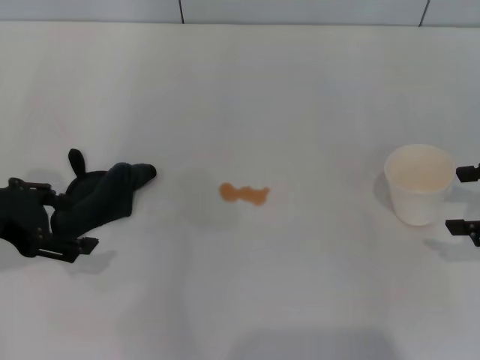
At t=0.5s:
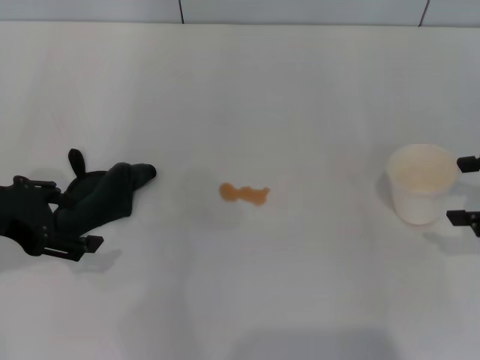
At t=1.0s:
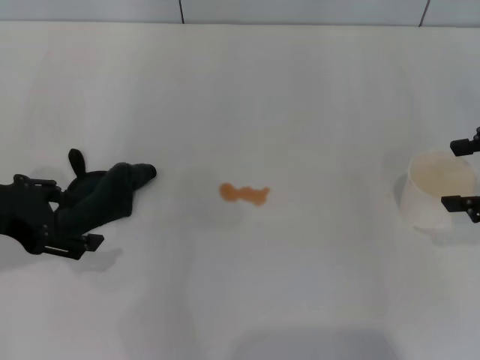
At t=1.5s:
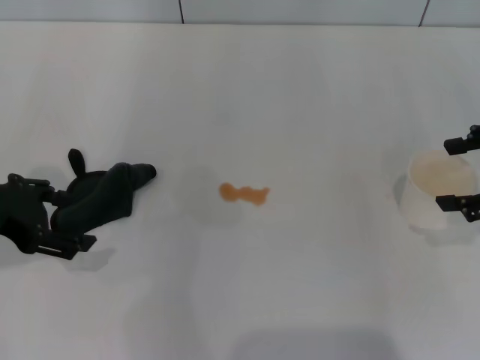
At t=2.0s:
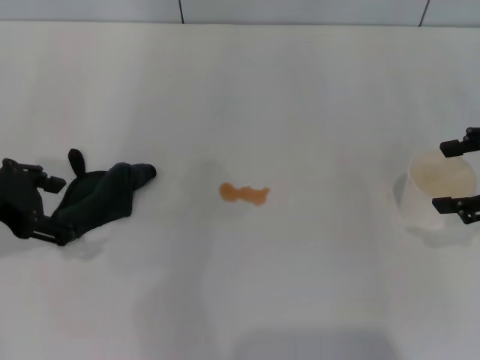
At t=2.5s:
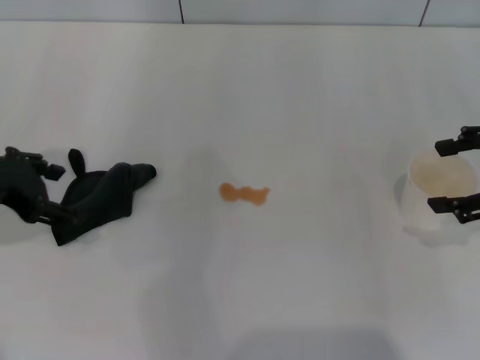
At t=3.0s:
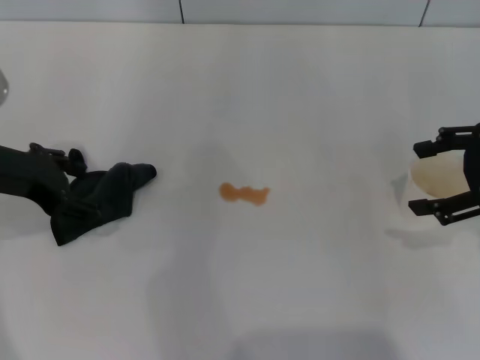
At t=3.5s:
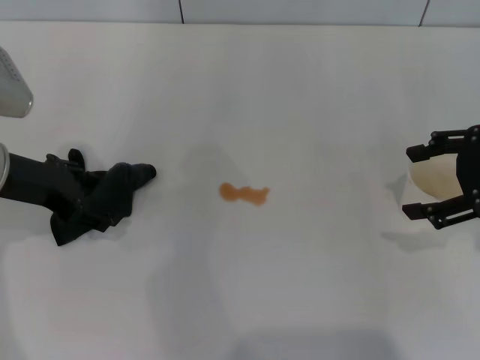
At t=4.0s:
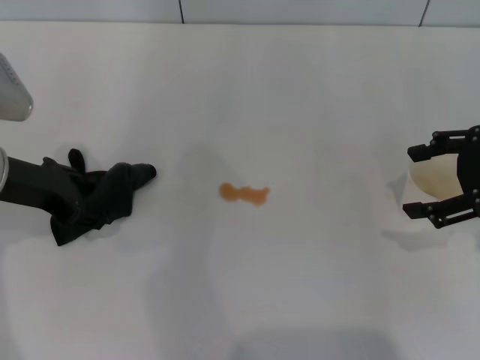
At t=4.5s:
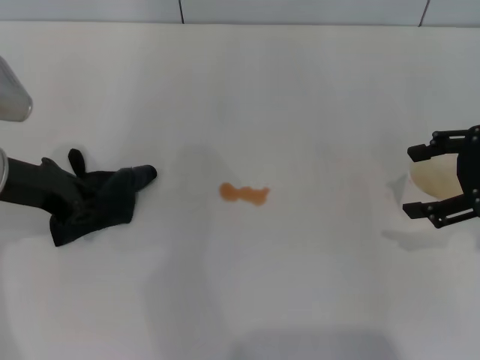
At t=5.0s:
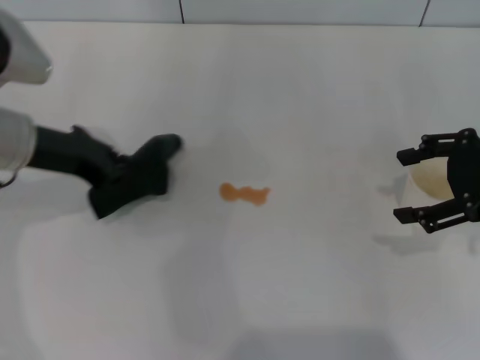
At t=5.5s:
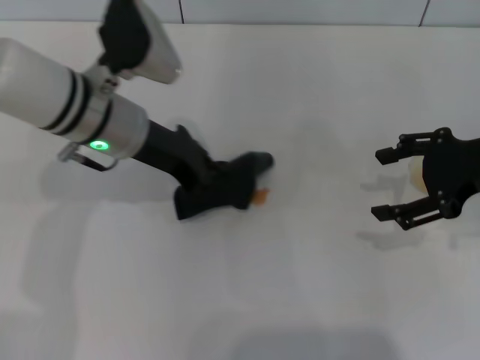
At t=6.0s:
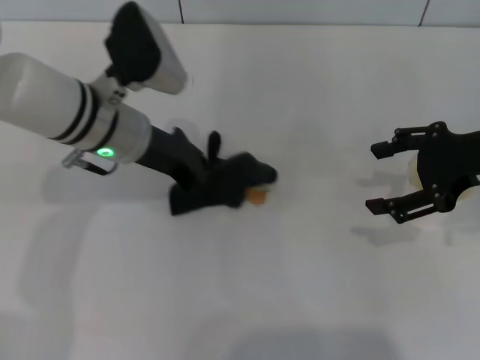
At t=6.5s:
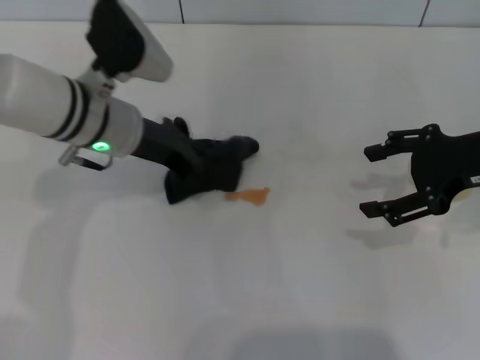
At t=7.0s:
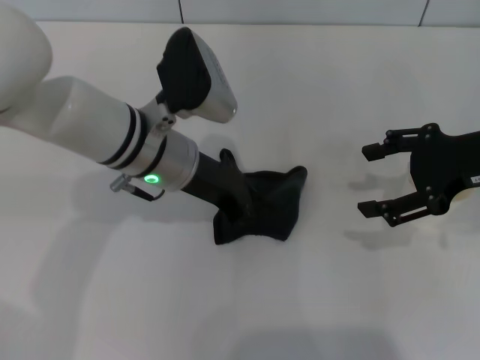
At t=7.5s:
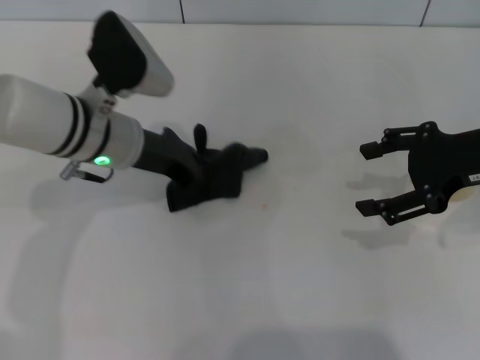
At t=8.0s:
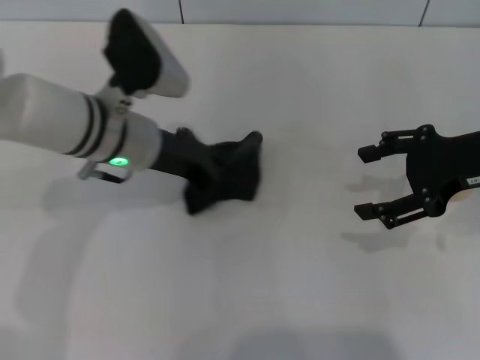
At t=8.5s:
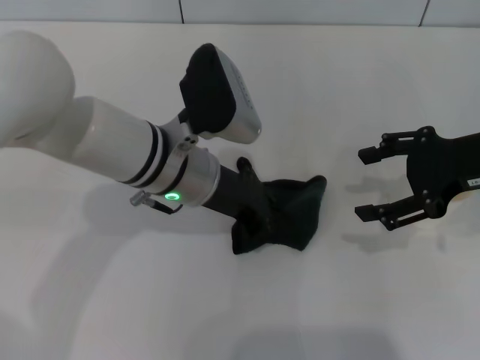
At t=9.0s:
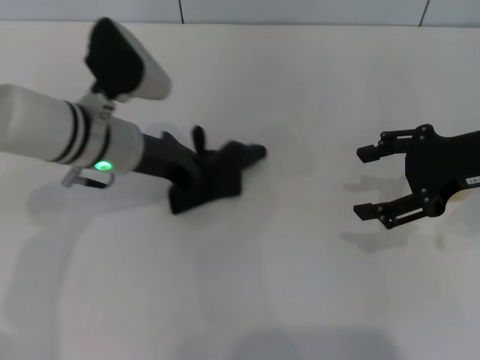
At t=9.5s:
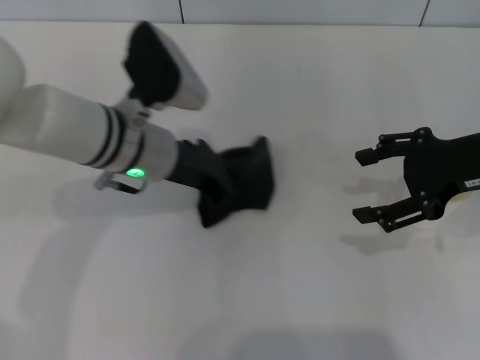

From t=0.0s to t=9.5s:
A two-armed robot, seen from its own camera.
Step, from t=0.0s to t=4.5s: Grasp the rag with the left gripper.
From t=0.0s to t=2.0s: There are only small adjustments of the grippers.
From t=2.0s to t=4.0s: The left gripper moves roughly 5 cm.
From t=4.0s to t=5.5s: The left gripper goes about 10 cm to the right, and closes up.
From t=5.5s to t=7.5s: The grippers make only small movements.

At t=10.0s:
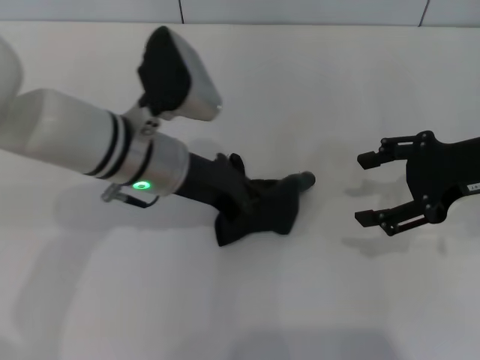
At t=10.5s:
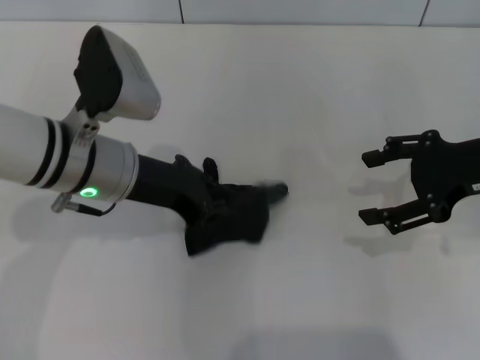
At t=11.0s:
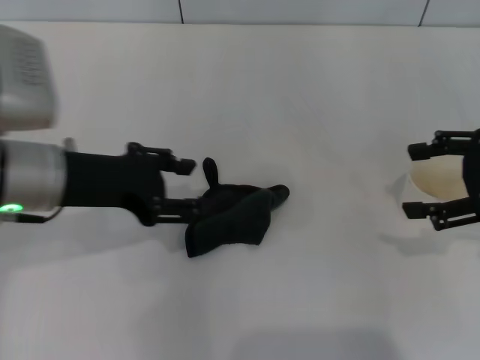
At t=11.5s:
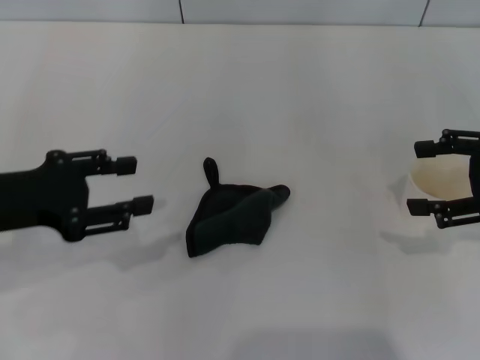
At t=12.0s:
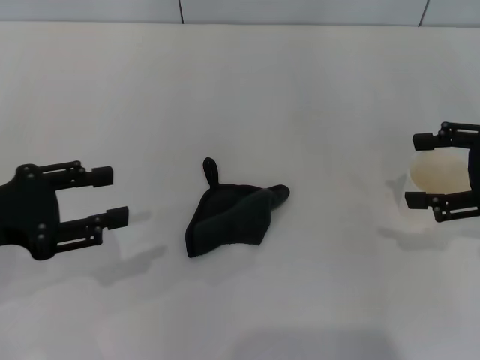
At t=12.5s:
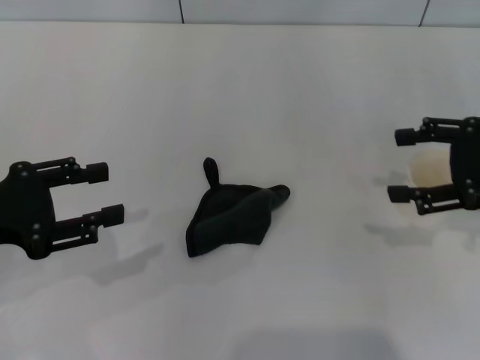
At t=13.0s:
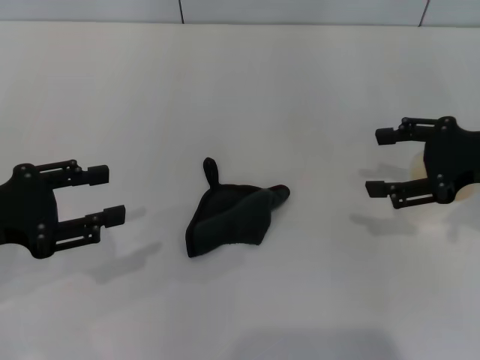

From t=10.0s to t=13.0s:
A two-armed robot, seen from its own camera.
Step, from t=10.5s to t=11.0s: Place the rag on the table with the left gripper.
From t=10.0s to t=11.5s: The right gripper shifts some 5 cm to the right. Meanwhile the left gripper shifts approximately 20 cm to the left and backward, and opens its fingers.
From t=11.5s to t=13.0s: The grippers make only small movements.

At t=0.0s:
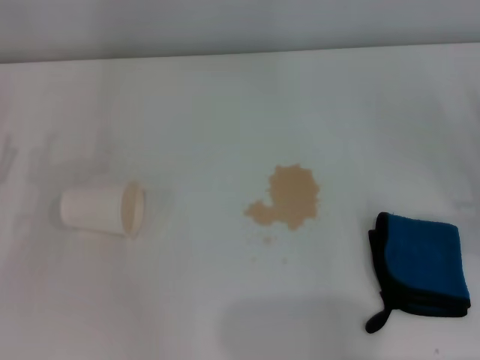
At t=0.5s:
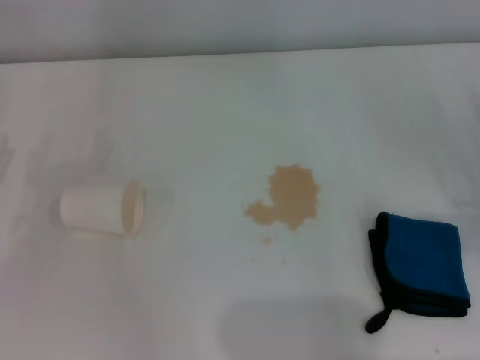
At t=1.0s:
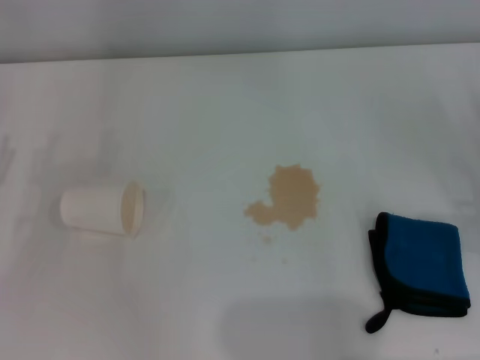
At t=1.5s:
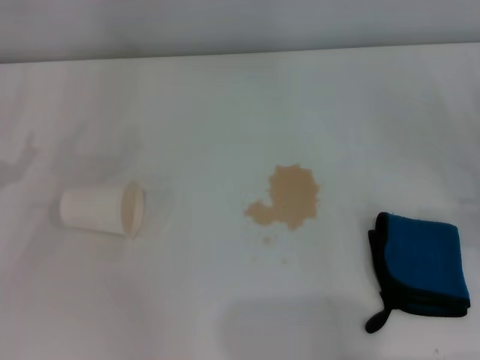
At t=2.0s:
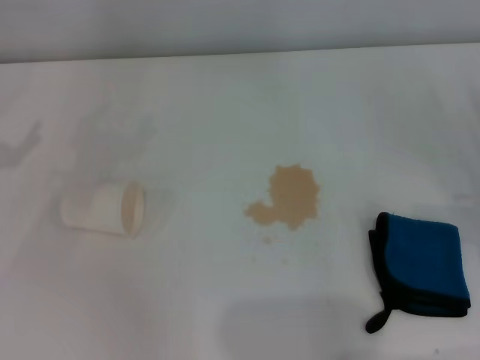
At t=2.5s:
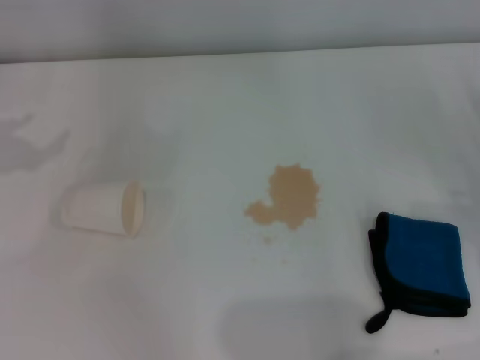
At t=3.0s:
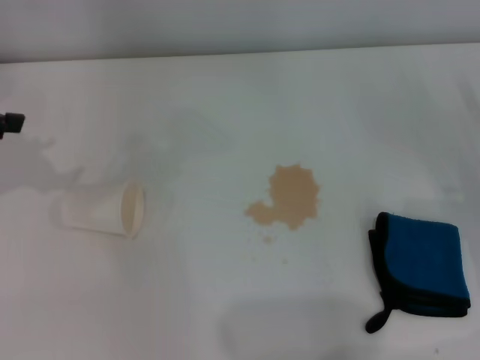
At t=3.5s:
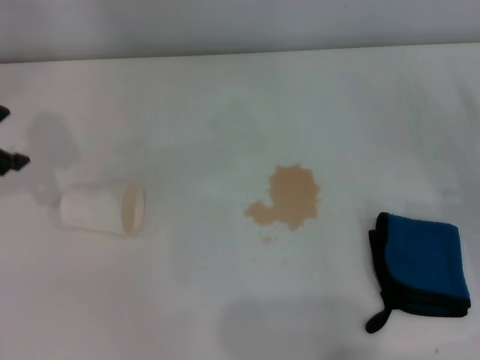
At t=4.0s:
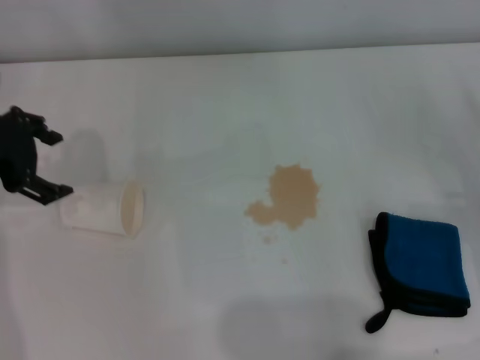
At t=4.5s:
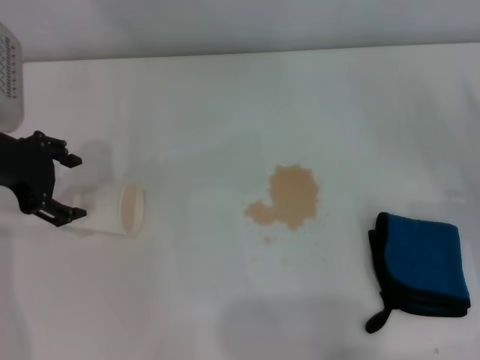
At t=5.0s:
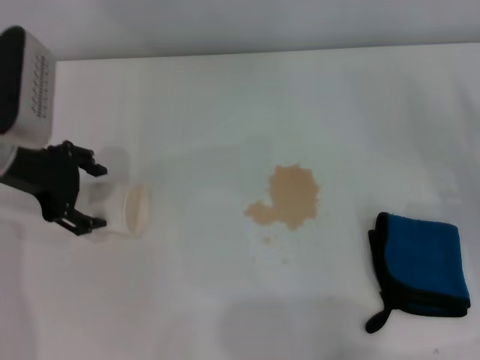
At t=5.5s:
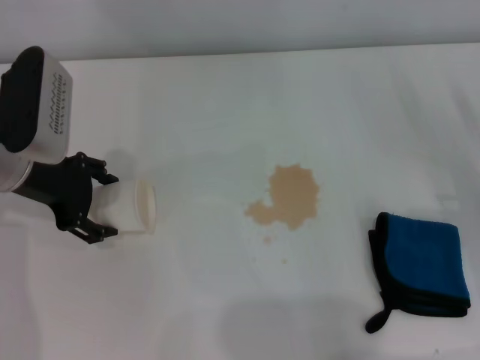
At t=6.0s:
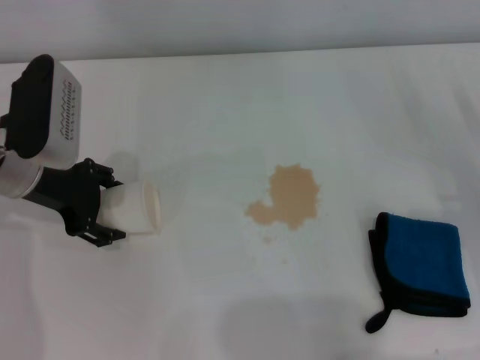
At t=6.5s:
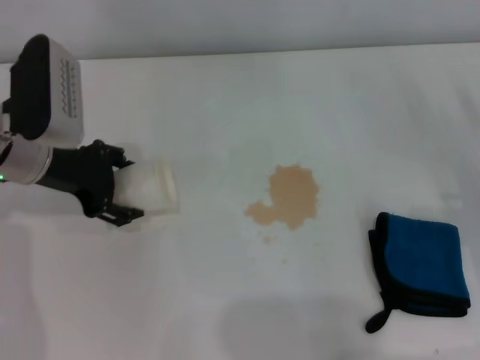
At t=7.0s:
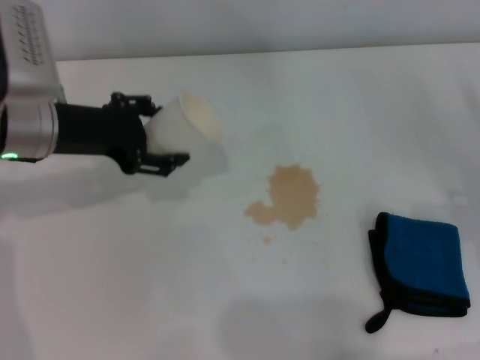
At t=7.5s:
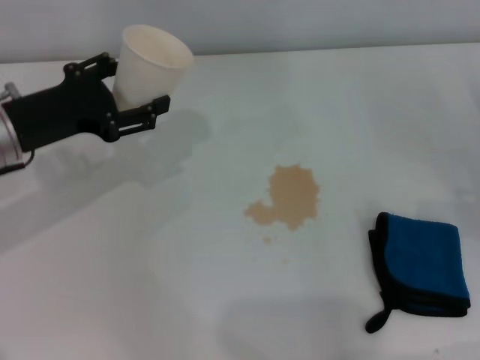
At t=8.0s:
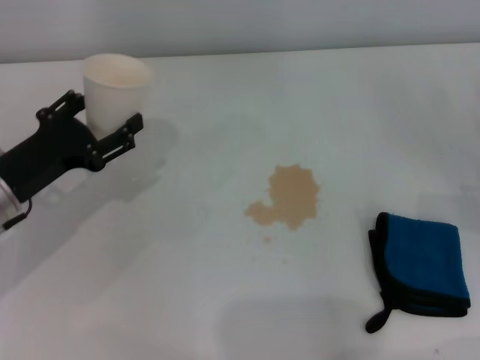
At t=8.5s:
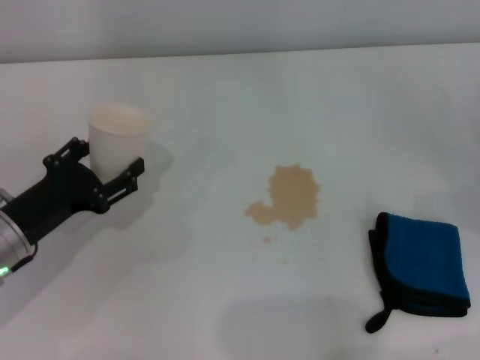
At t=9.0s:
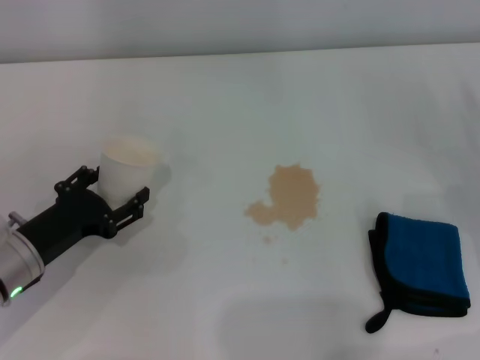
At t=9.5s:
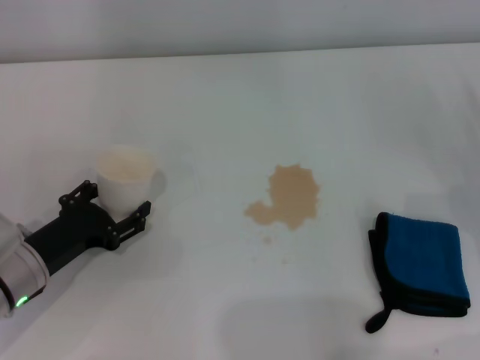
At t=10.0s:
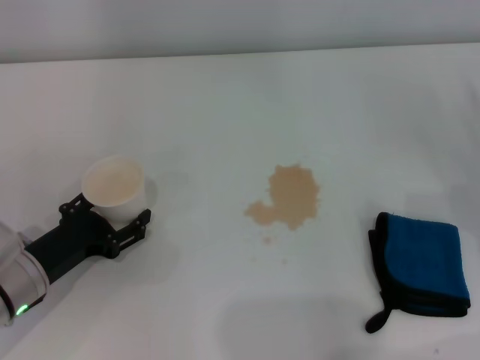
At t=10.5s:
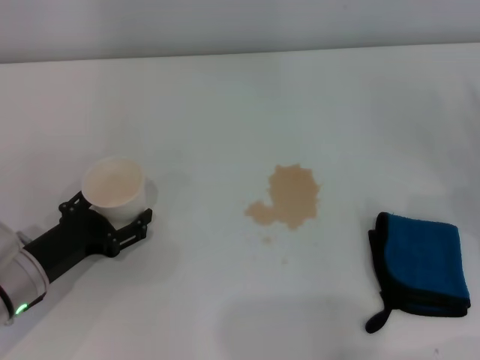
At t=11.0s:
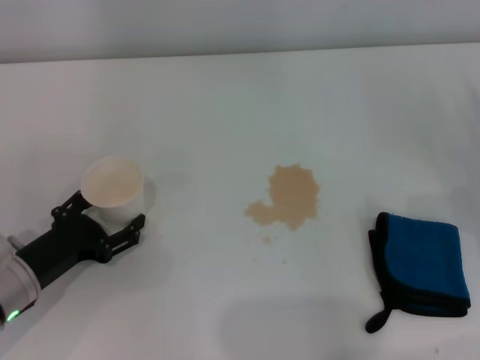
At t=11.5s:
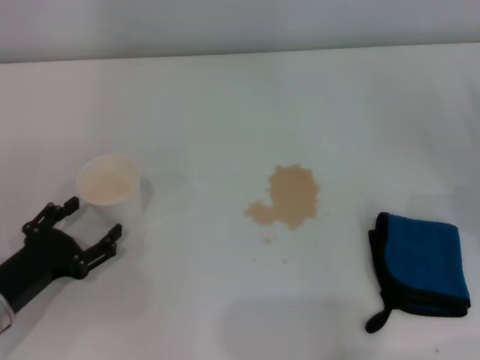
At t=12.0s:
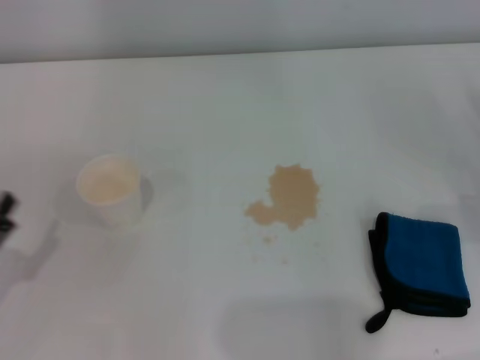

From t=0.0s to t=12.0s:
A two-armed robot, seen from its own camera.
Step, from t=0.0s to t=6.0s: Grasp the paper cup with the left gripper.
Step, from t=6.5s to t=11.0s: Stand the paper cup upright with the left gripper.
From t=2.0s to t=4.0s: The left gripper goes roughly 15 cm to the right, upward and forward.
From t=4.0s to t=6.0s: The left gripper goes approximately 5 cm downward.
From t=6.0s to t=8.0s: The left gripper heads backward and downward, covering about 10 cm.
From t=8.0s to t=10.0s: The left gripper heads downward, covering approximately 5 cm.
From t=10.0s to t=12.0s: The left gripper travels backward and to the left by approximately 10 cm.

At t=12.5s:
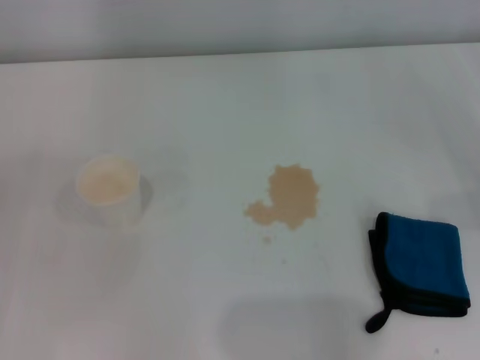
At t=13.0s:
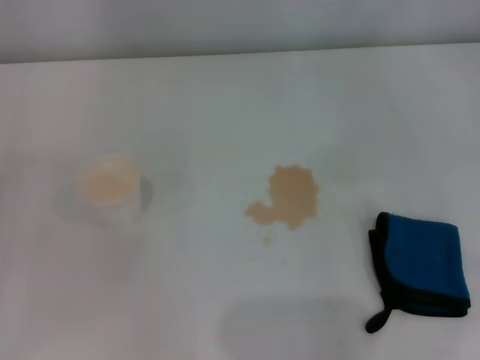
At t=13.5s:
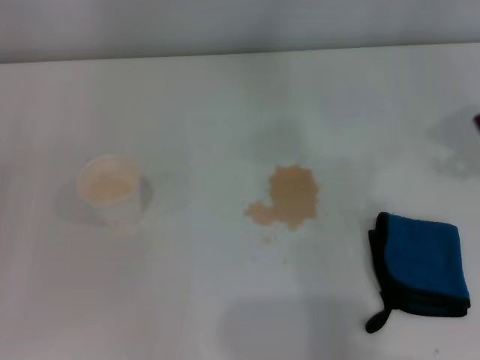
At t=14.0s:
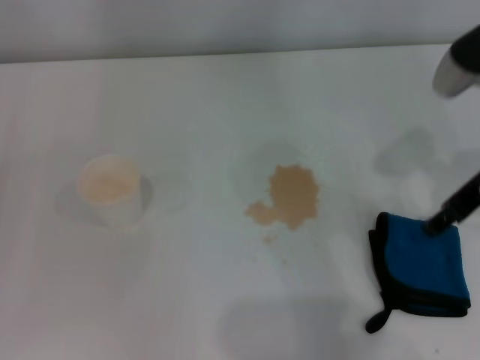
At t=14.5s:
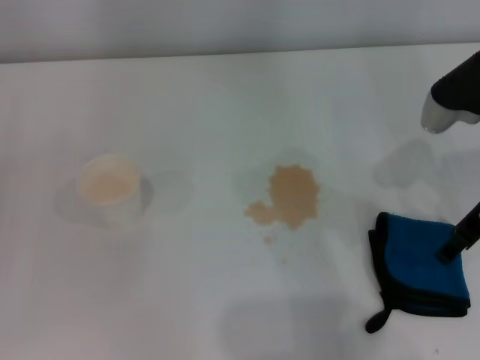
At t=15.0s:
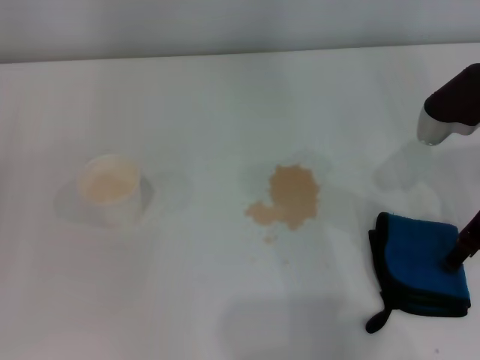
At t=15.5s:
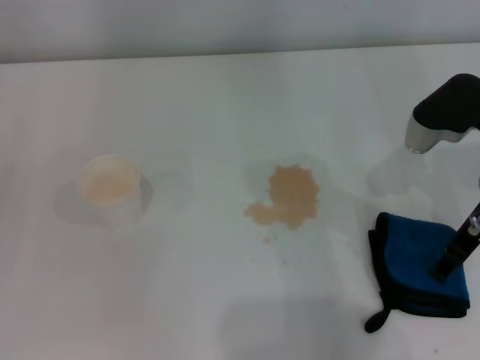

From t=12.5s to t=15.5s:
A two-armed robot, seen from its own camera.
From t=12.5s to t=14.0s: The right gripper is displaced to the left by roughly 20 cm.
From t=14.0s to t=15.5s: The right gripper heads downward, covering approximately 5 cm.
